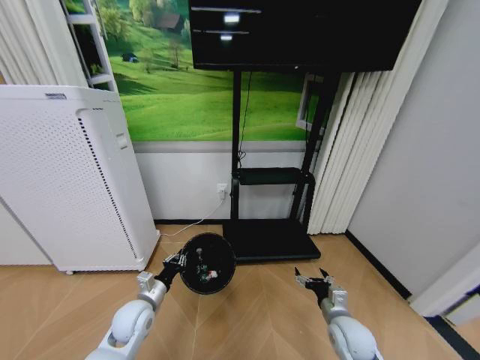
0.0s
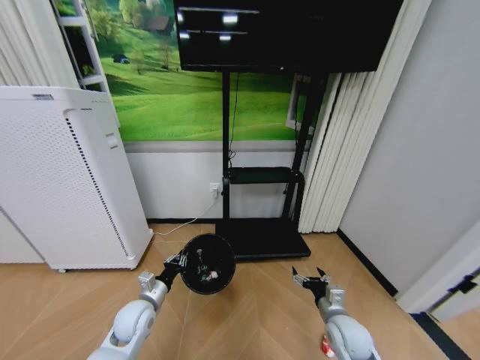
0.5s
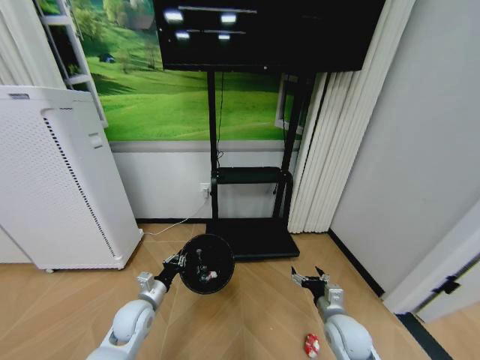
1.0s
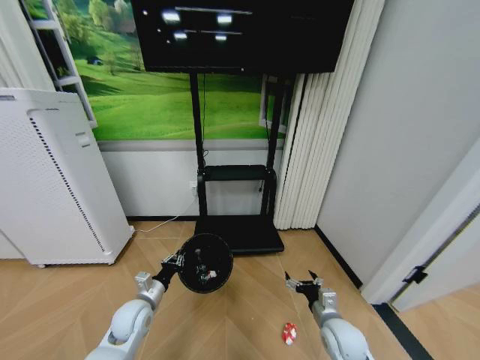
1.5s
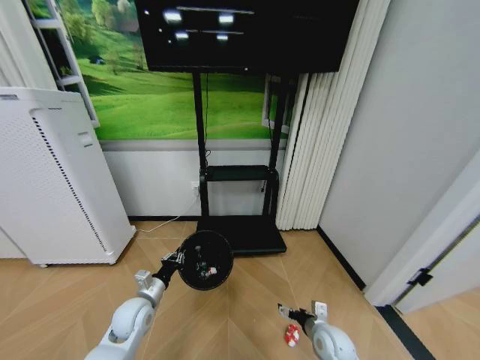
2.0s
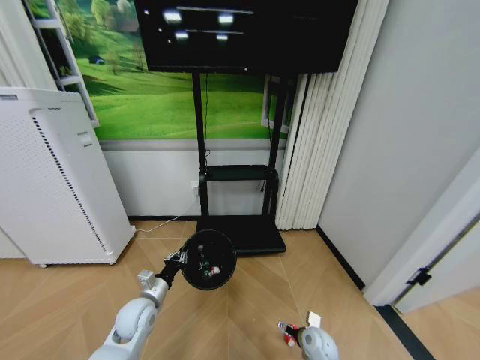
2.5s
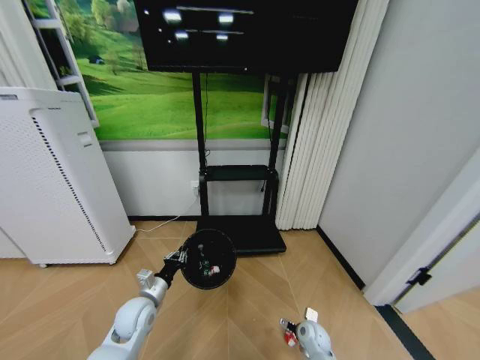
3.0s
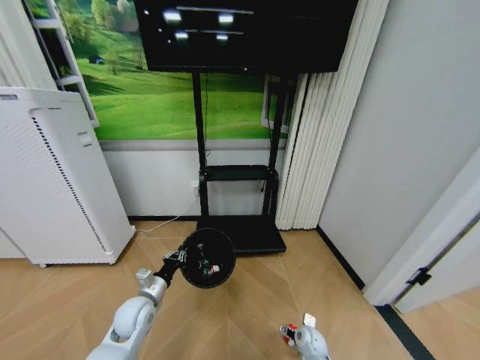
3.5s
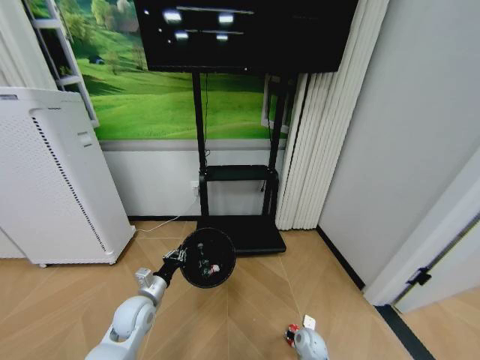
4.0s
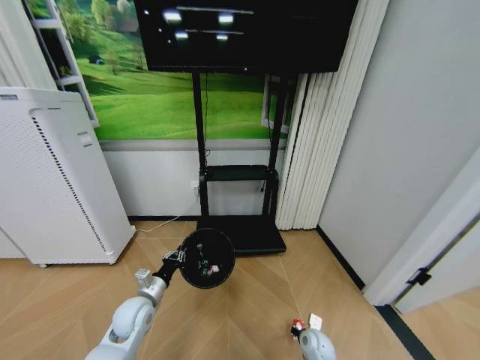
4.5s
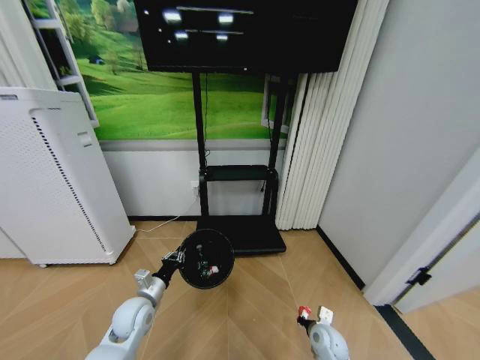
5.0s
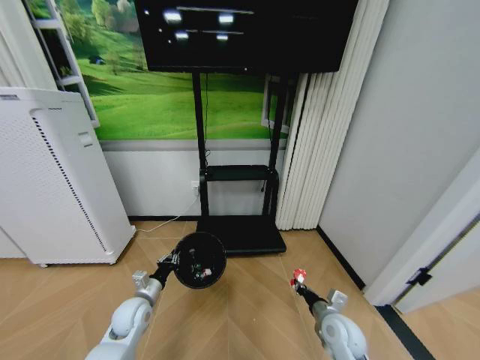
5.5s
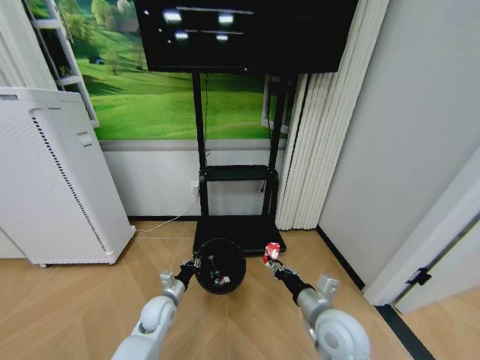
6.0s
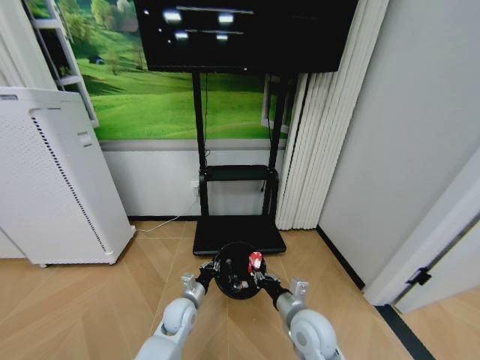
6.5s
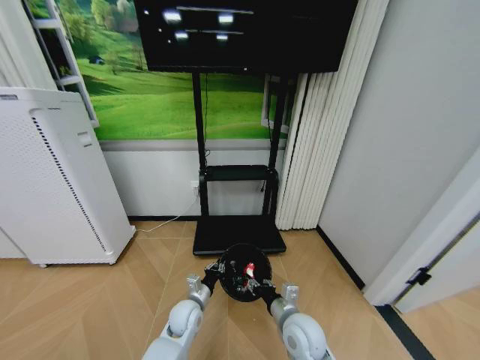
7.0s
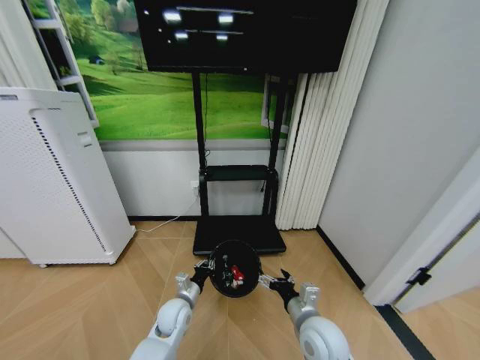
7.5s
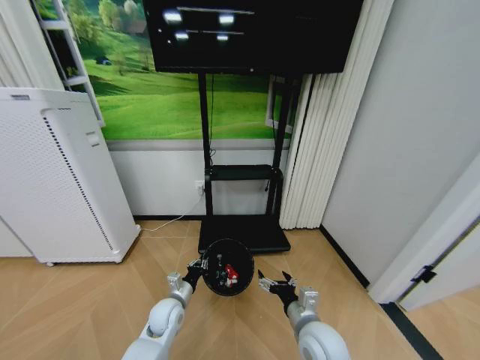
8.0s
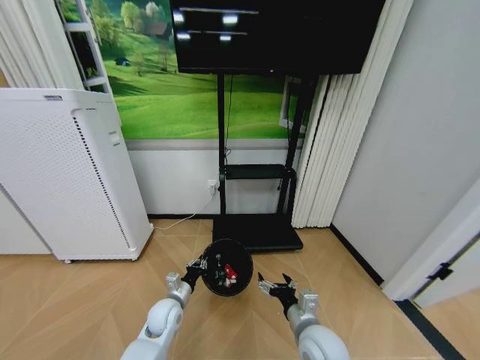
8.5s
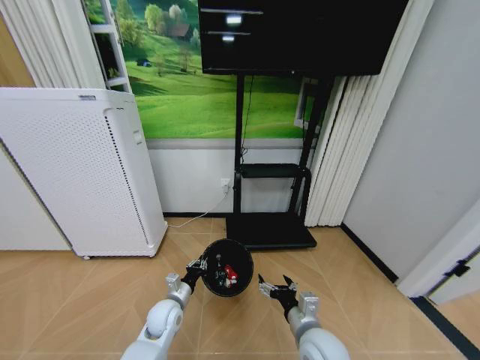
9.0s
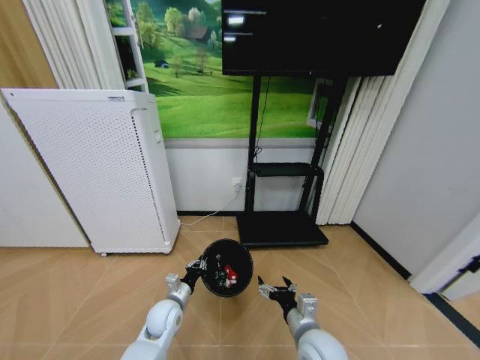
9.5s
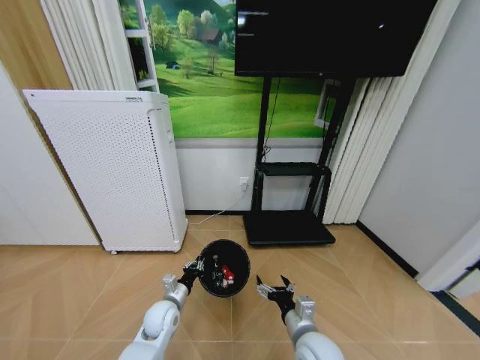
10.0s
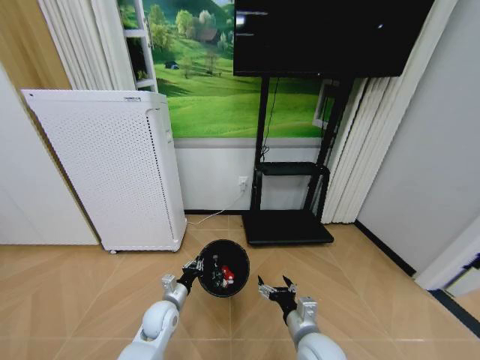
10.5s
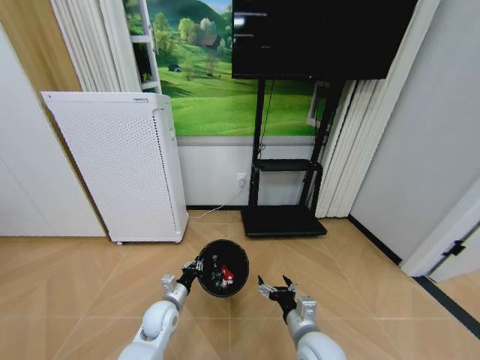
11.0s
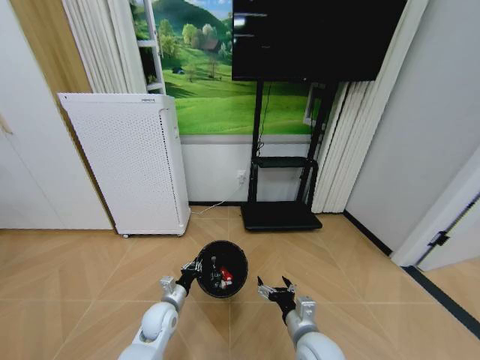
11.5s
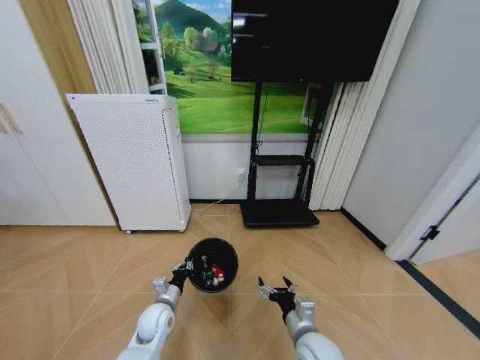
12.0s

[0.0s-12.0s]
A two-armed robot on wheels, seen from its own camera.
Task of the whole recording: Pick up the trash bin and place the garbage on the floor into it.
0.0s to 2.0s: The right gripper goes some 5 cm downward.
2.0s to 4.0s: The right gripper goes some 10 cm downward, and closes up.
4.0s to 6.0s: The left gripper goes roughly 5 cm downward. Meanwhile the right gripper heads upward, covering some 30 cm, and closes up.
6.0s to 8.0s: The right gripper opens up.

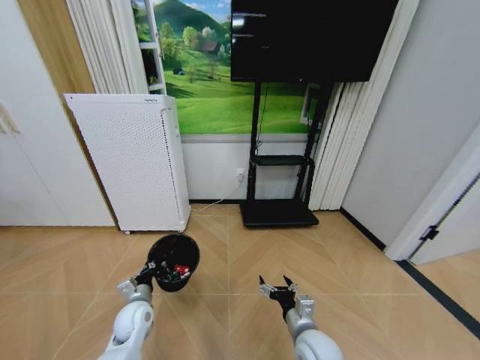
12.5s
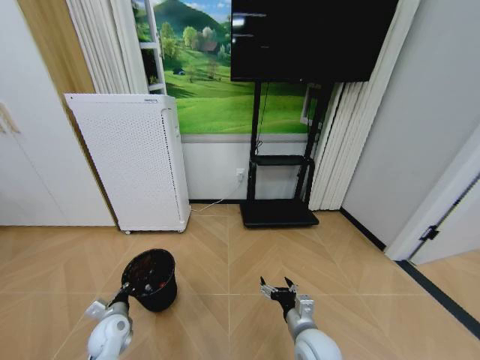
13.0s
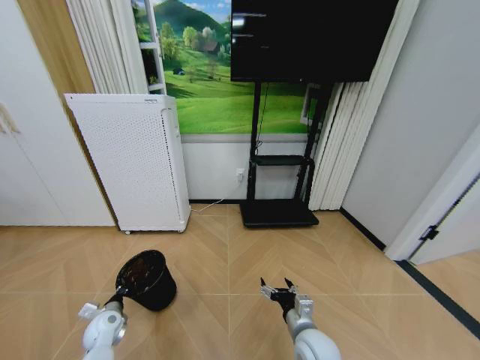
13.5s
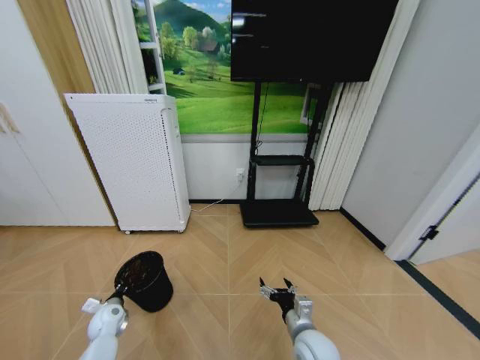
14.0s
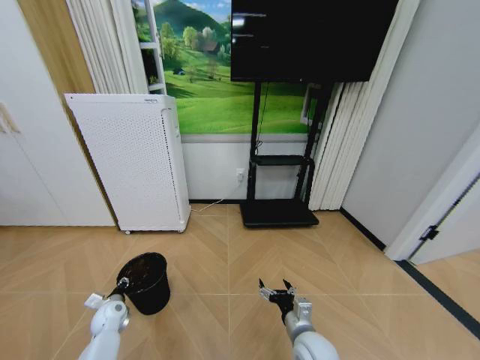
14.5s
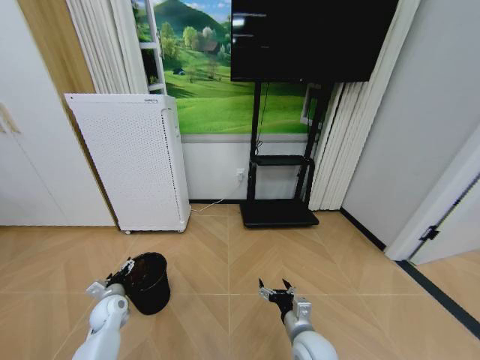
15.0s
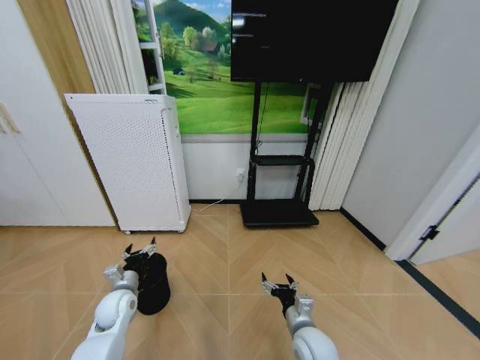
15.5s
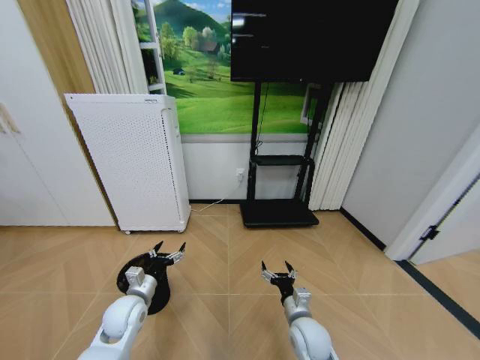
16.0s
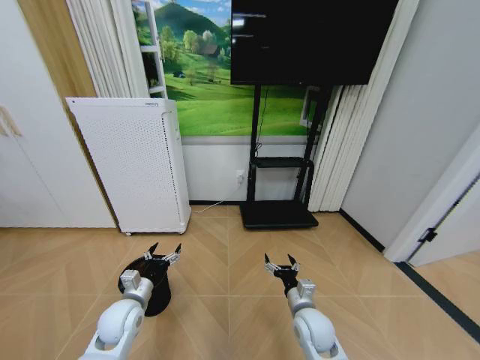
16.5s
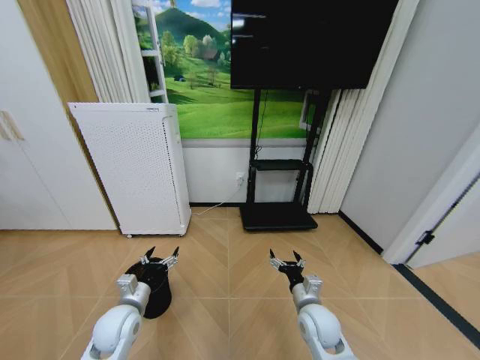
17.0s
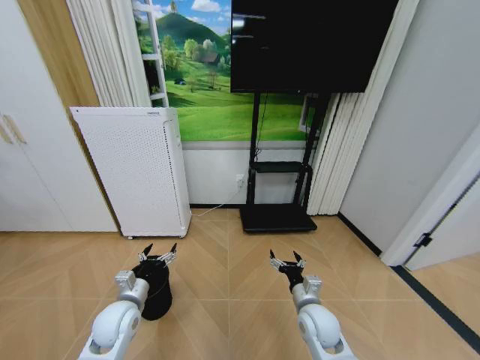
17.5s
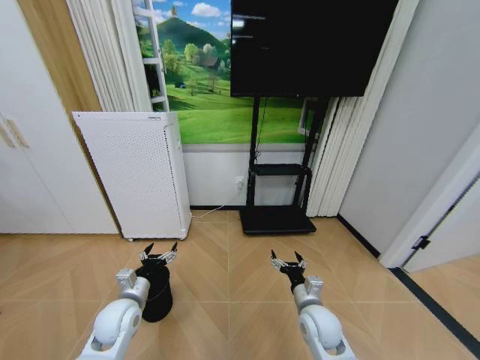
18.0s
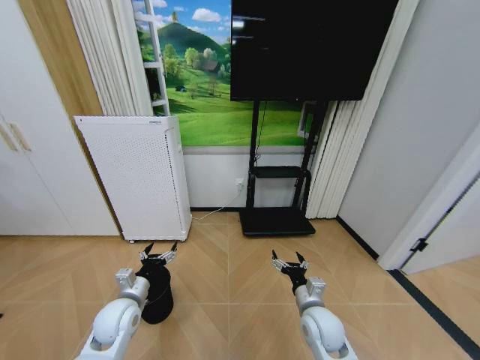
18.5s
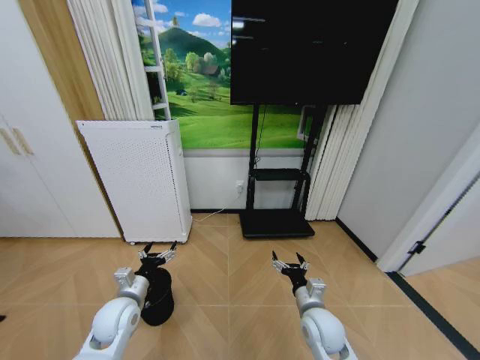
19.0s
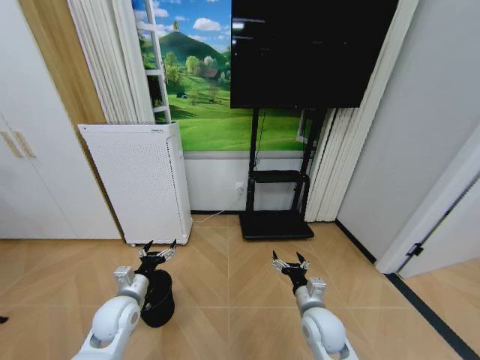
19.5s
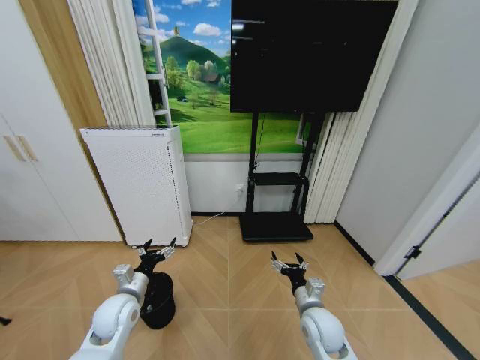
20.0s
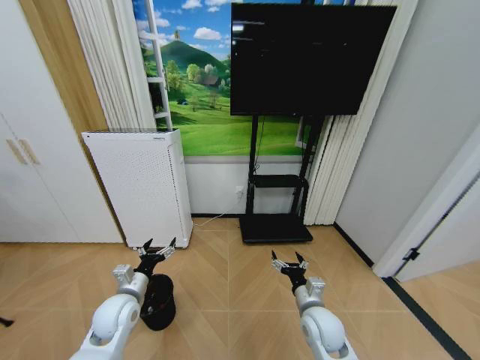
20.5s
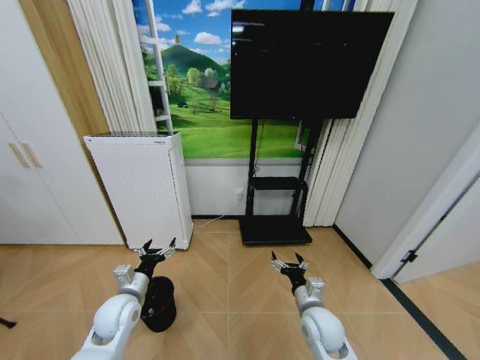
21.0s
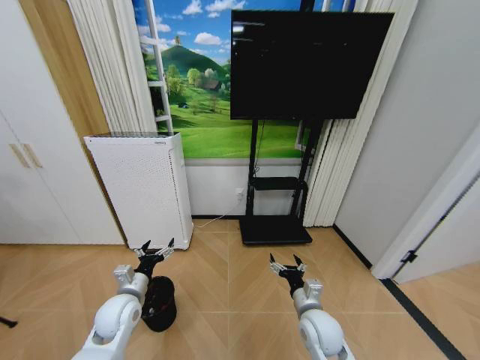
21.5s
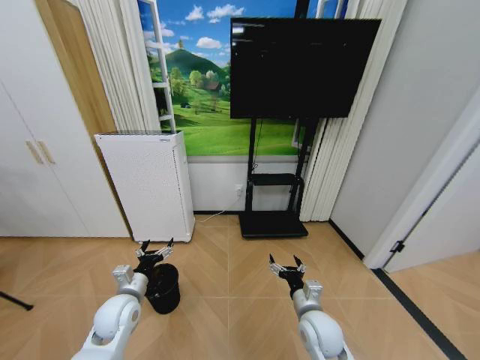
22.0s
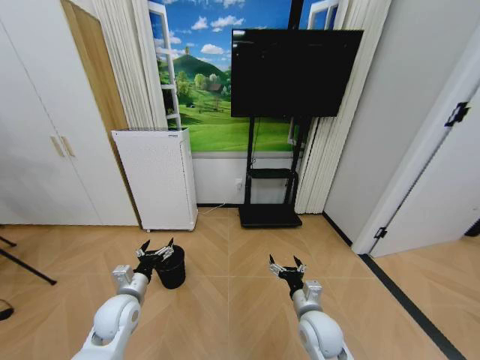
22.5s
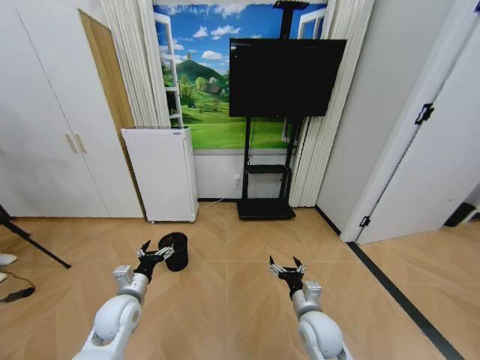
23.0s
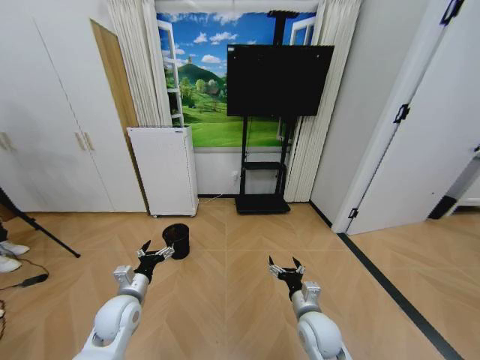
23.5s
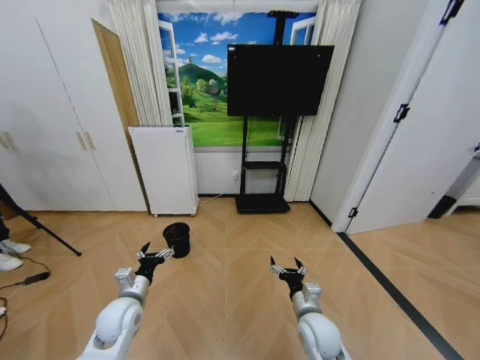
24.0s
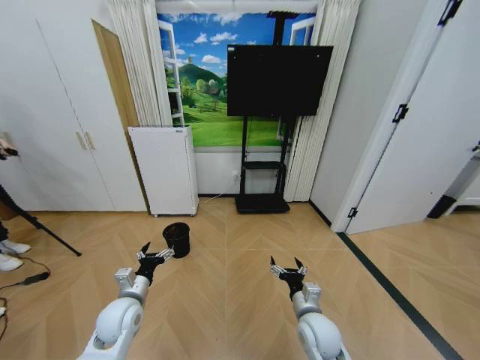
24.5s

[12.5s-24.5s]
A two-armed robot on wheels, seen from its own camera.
Task of the whole recording: Pick up the trash bin and place the garbage on the floor into it.
12.5s to 14.5s: The left gripper goes approximately 15 cm to the left and downward, and opens its fingers.
14.5s to 16.5s: The right gripper is displaced forward by approximately 5 cm. Meanwhile the left gripper moves upward, to the right and backward, roughly 20 cm, and opens.
16.5s to 18.5s: The grippers move only a little.
18.5s to 20.5s: The two grippers keep their place.
